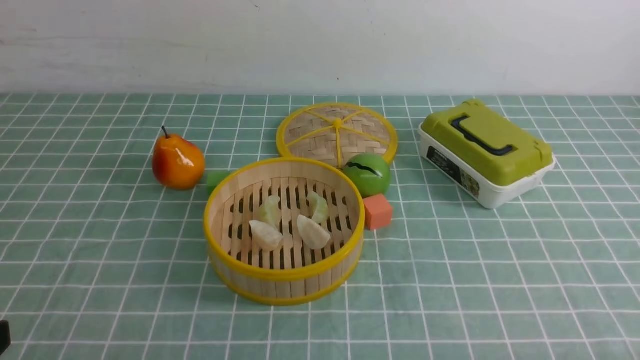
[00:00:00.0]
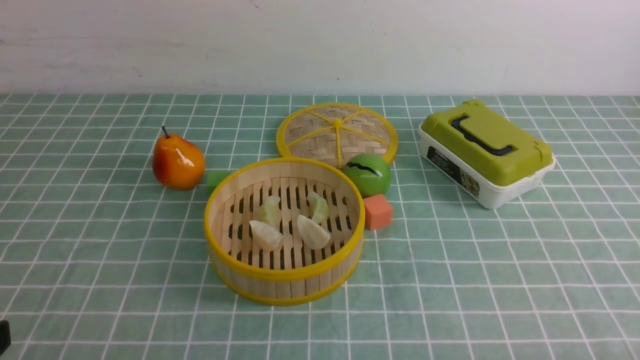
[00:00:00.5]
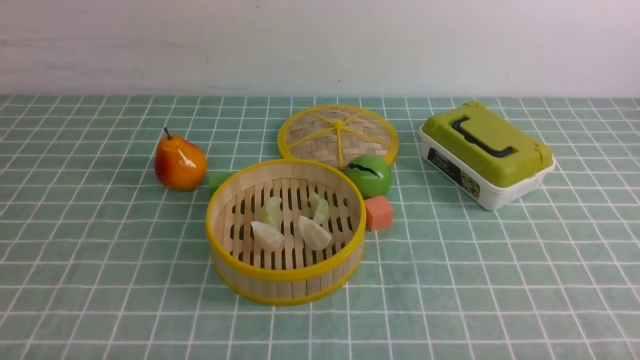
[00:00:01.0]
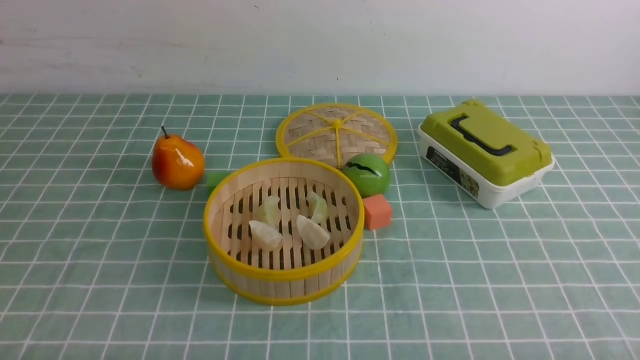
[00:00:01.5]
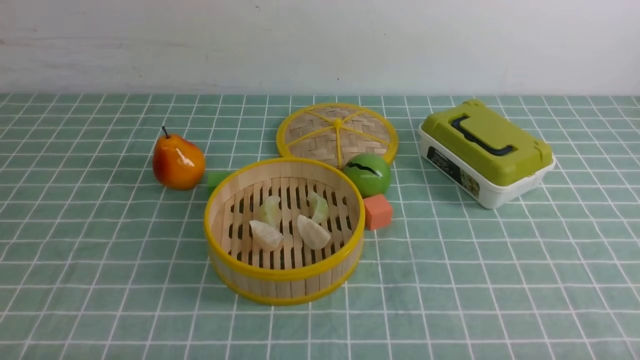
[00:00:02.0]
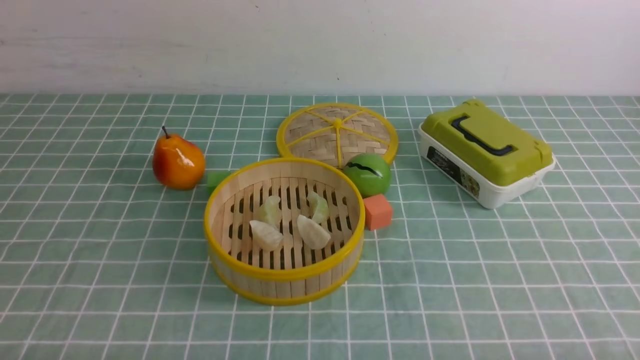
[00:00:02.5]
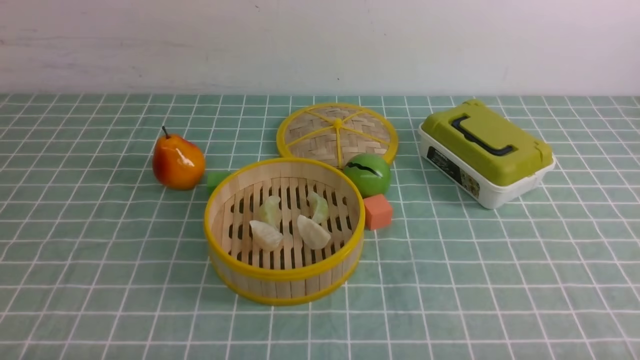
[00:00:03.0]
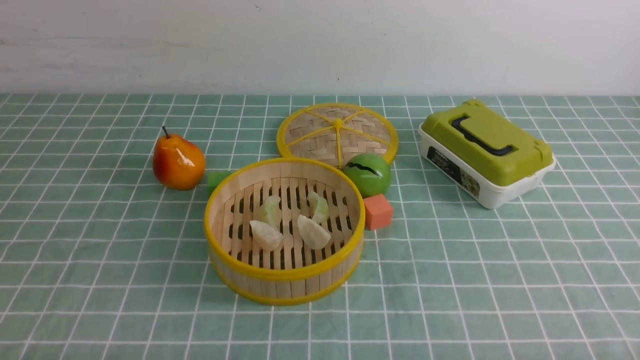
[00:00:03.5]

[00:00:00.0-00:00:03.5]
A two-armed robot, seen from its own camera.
Task of the whole recording: put the dumplings into the steamer on the table with the blue tablecloth.
00:00:02.0 to 00:00:03.5: Both grippers stay put.

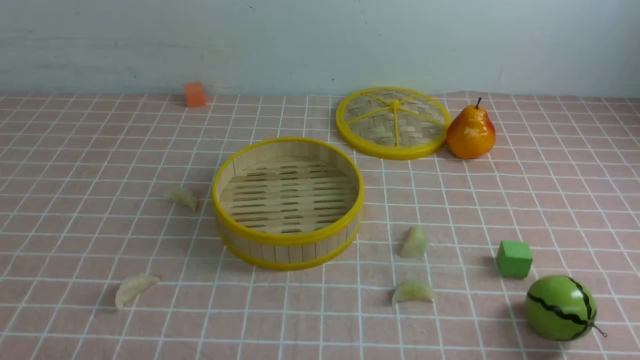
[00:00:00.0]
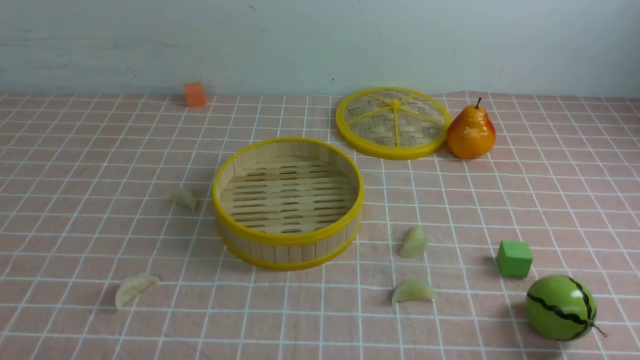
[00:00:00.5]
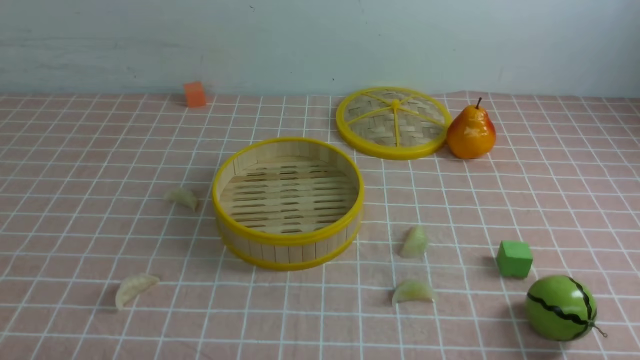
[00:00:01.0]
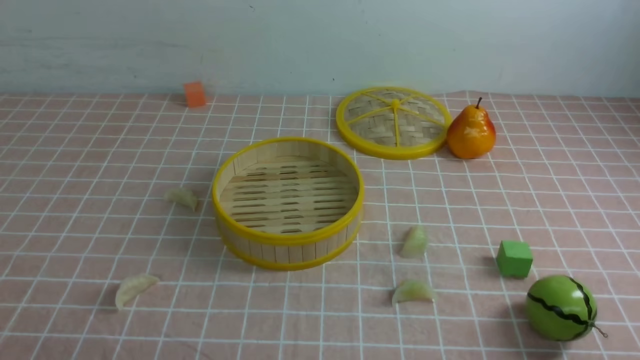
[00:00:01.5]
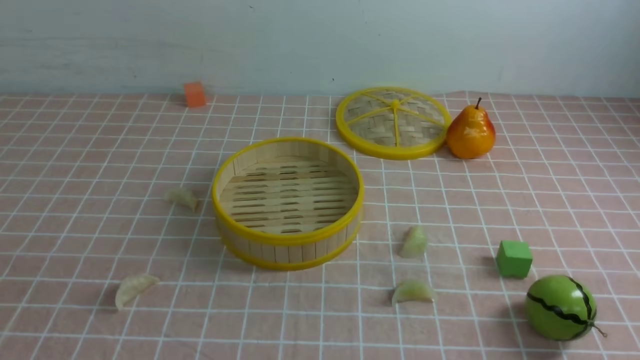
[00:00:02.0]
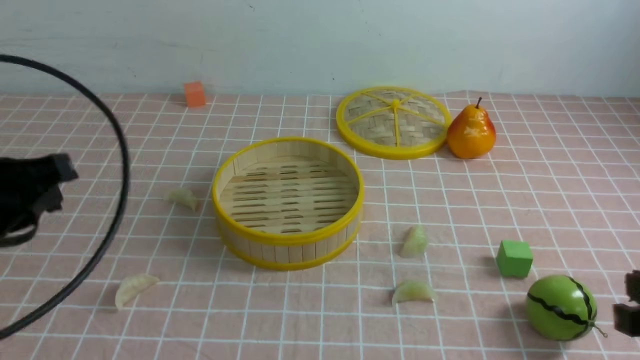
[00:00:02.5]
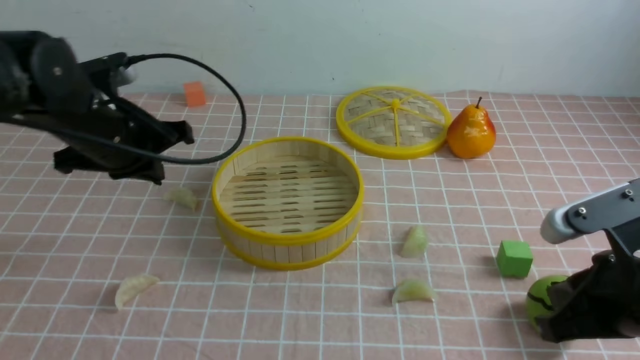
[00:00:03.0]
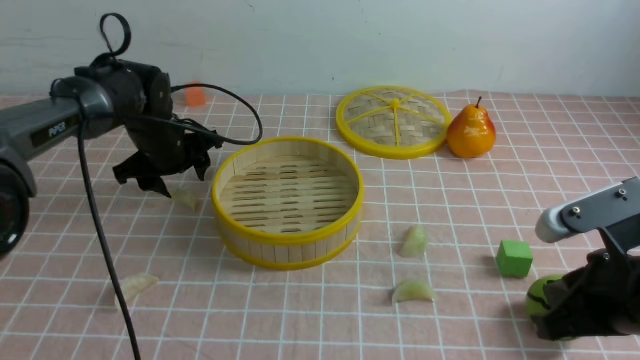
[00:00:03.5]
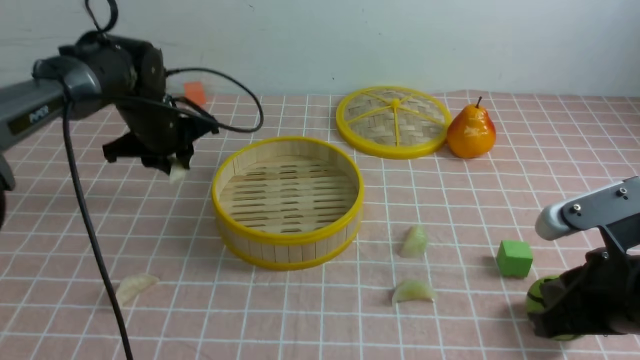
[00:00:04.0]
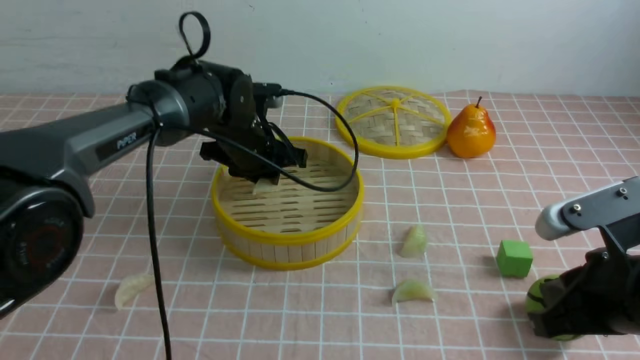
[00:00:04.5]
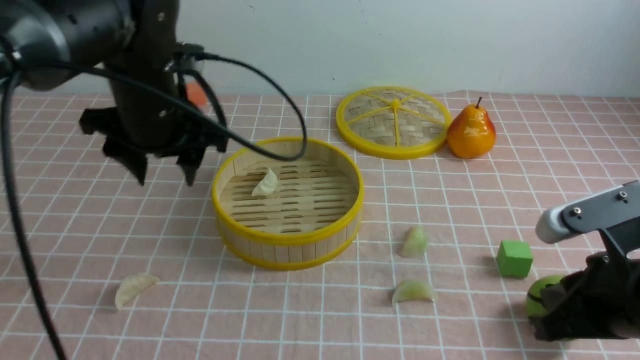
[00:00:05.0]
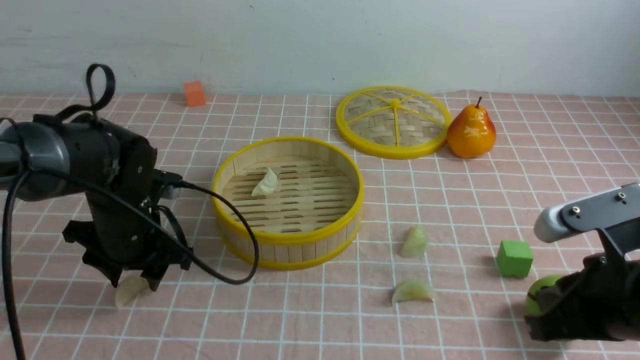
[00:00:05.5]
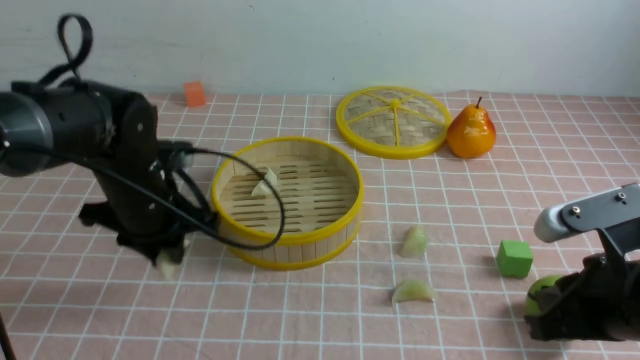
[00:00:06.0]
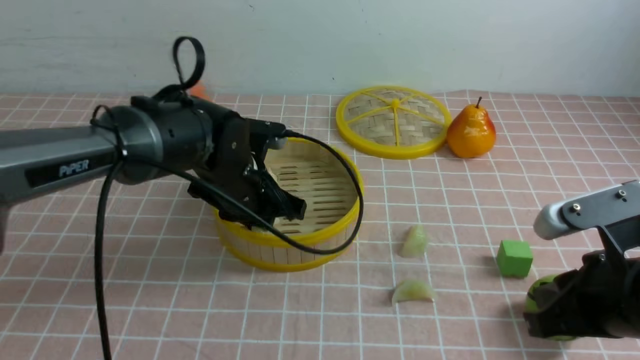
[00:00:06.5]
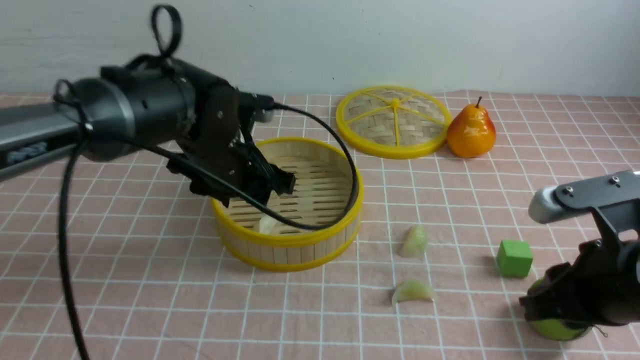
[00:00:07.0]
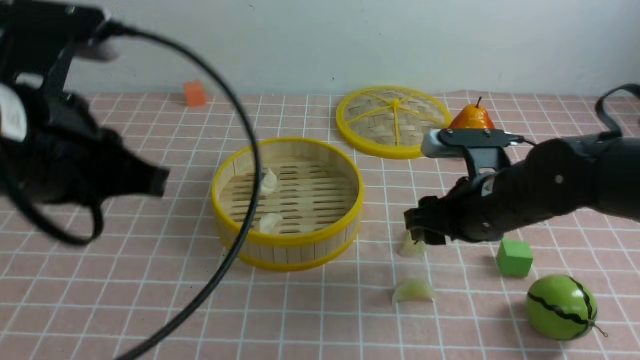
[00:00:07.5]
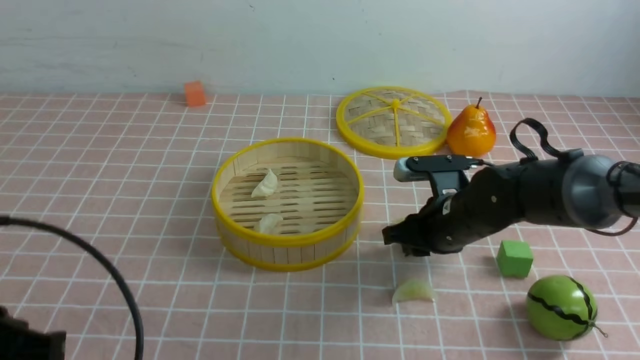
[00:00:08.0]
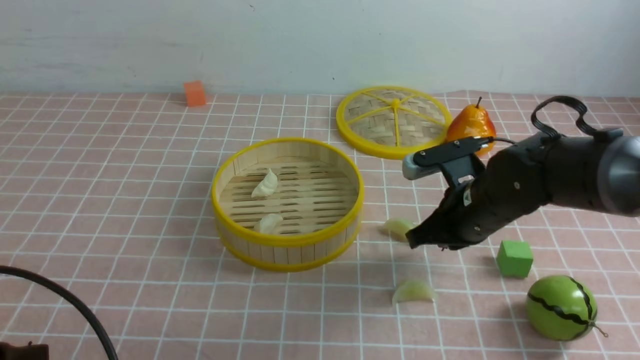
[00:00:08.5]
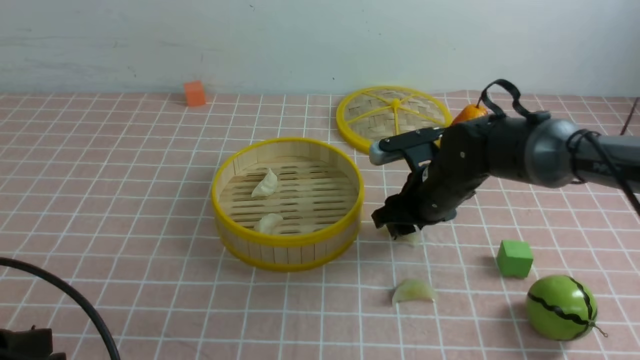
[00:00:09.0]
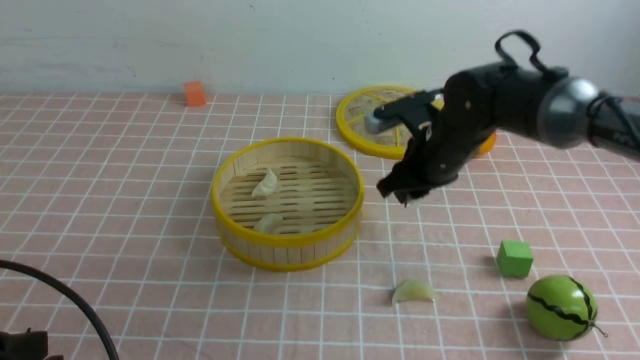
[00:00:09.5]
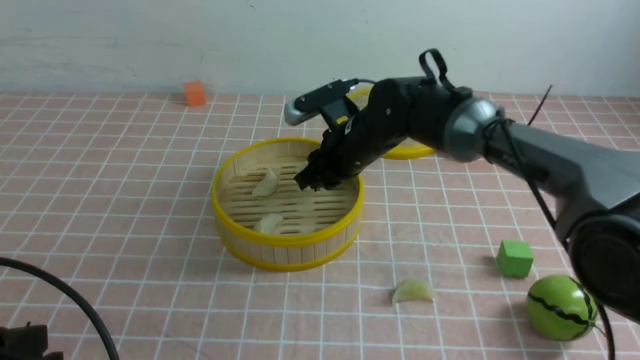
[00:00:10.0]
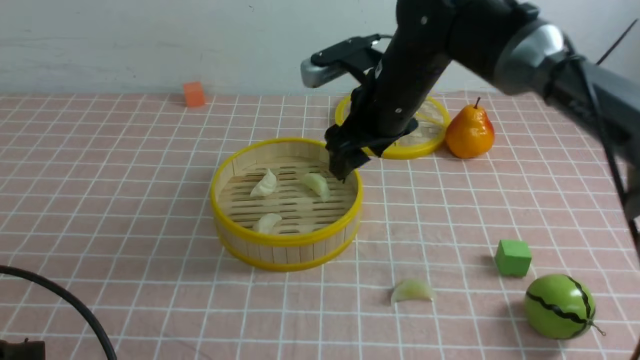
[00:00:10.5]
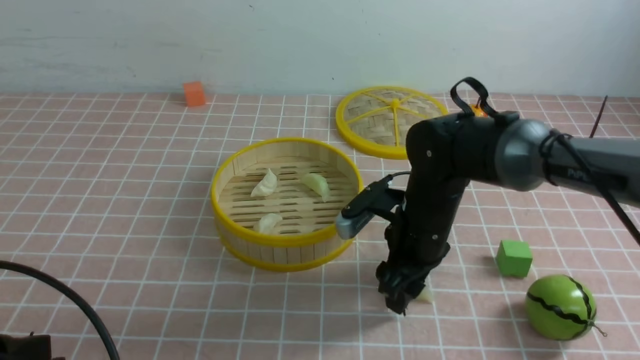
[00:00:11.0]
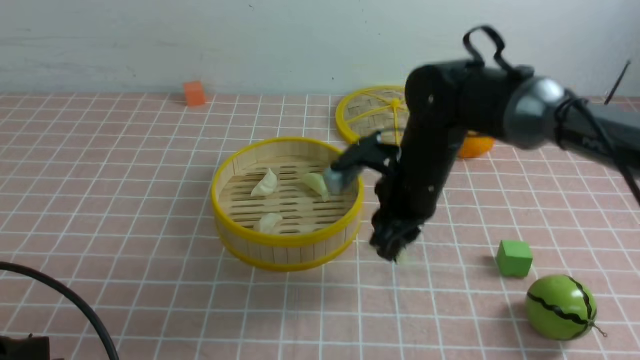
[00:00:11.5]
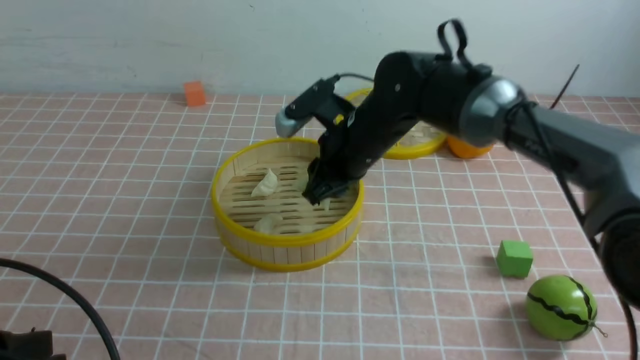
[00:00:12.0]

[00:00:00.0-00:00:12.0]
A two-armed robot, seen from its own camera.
Task of the whole recording: put the dumplings into the steamer on the table with the pink tablecloth.
Step, 00:00:00.0 to 00:00:03.5: use the left arm to grab a dumpling.
Step, 00:00:04.0 to 00:00:04.5: use the left arm to put the dumpling into the steamer.
Step, 00:00:05.0 to 00:00:05.5: use the left arm to grab a dumpling.
Step, 00:00:06.0 to 00:00:06.5: use the left arm to put the dumpling into the steamer.
Step, 00:00:07.0 to 00:00:09.0: use the right arm to grab a dumpling.
Step, 00:00:09.5 to 00:00:10.0: use the right arm to put the dumpling into the steamer.
Step, 00:00:10.5 to 00:00:11.0: use the right arm to grab a dumpling.
00:00:02.0 to 00:00:04.0: The left gripper shifts approximately 40 cm forward, and opens its fingers; the right gripper heads forward, to the left and downward, covering approximately 15 cm.
00:00:04.0 to 00:00:06.0: The left gripper travels backward by about 10 cm, and opens, then closes once more.
00:00:06.0 to 00:00:08.0: The left gripper moves backward, some 20 cm, and closes. Meanwhile the right gripper travels forward, downward and to the left by roughly 20 cm, and opens and closes again.
00:00:08.0 to 00:00:10.0: The right gripper is displaced to the left, forward and upward by approximately 15 cm.
00:00:10.0 to 00:00:12.0: The right gripper moves about 10 cm backward and comes back, and opens and closes again.

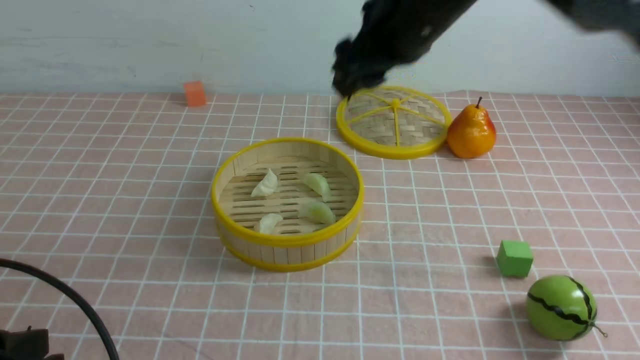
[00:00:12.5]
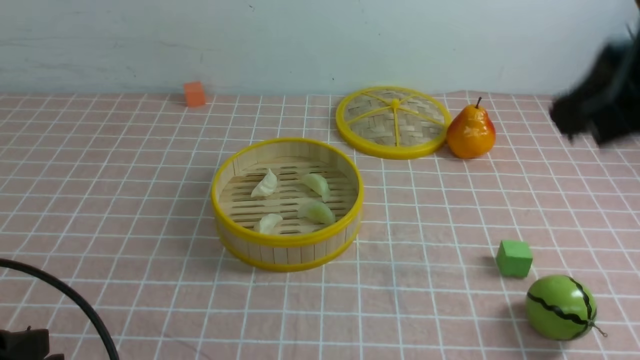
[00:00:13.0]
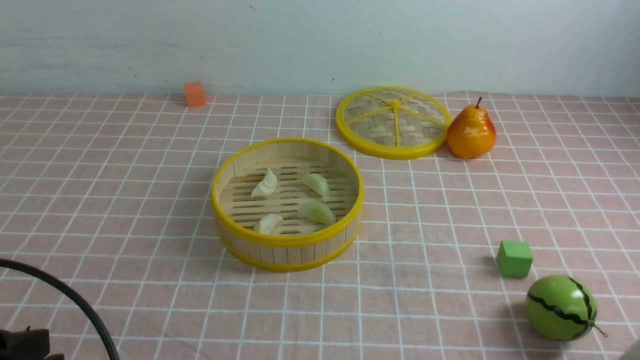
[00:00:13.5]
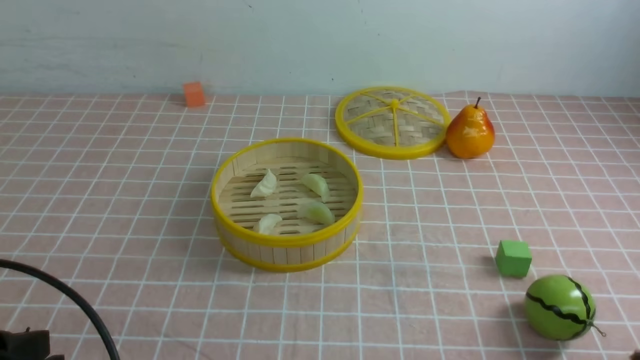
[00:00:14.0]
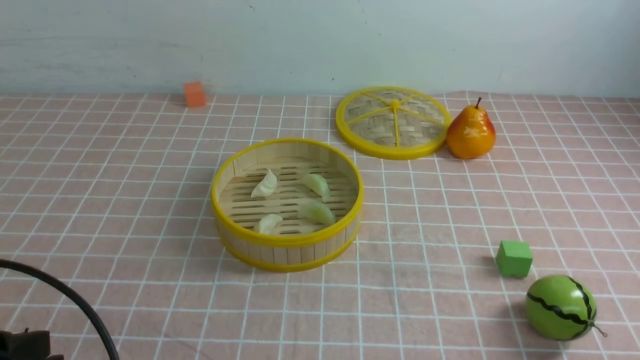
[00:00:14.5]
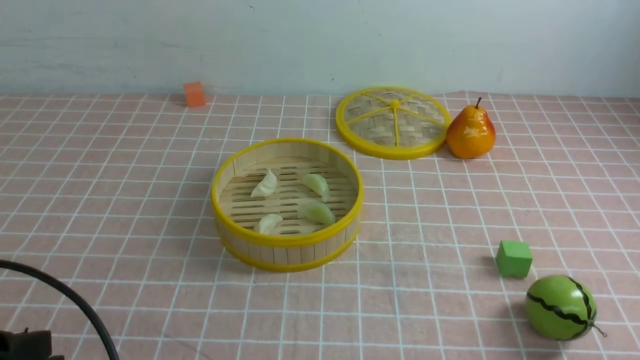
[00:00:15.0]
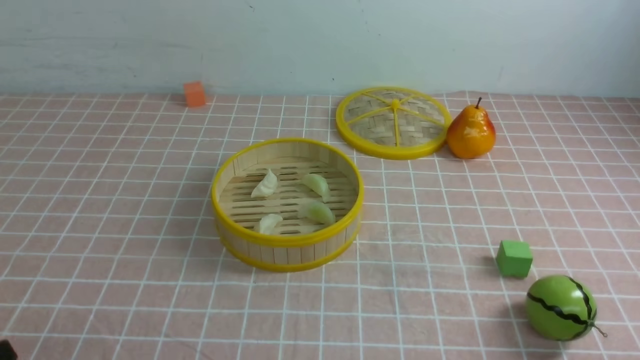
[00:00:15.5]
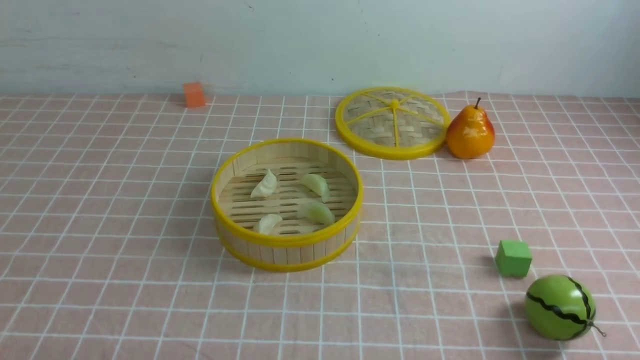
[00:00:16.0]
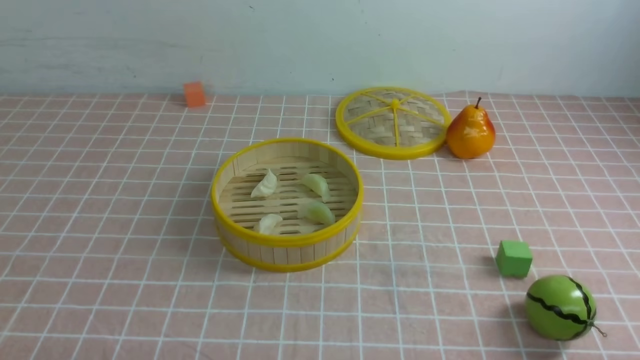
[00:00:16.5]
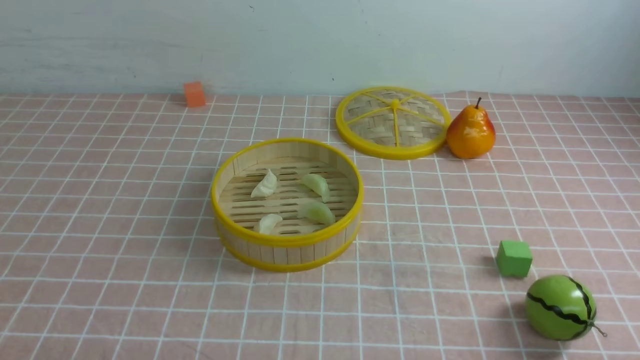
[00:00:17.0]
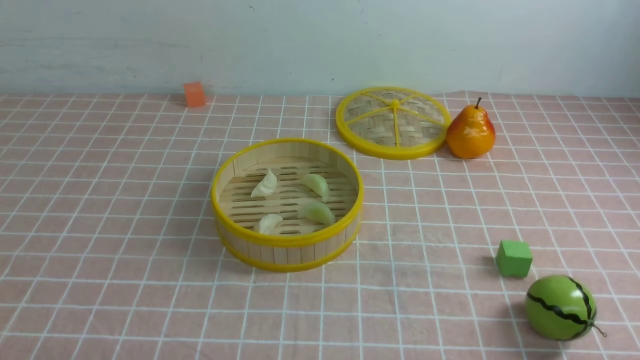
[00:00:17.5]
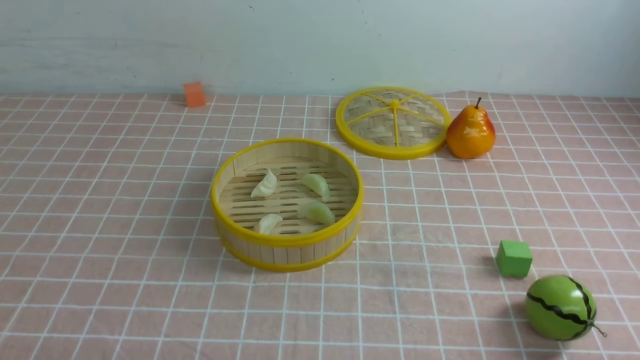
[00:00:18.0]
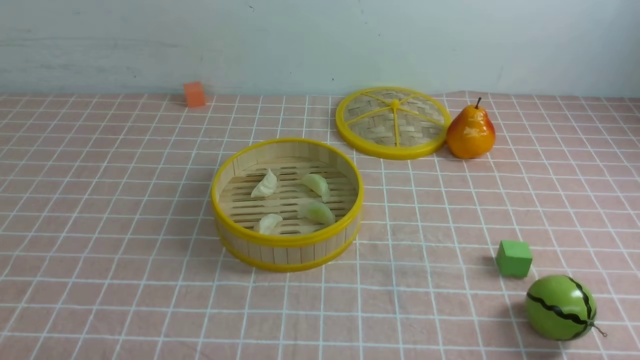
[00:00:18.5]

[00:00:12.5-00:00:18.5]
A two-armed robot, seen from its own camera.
Task of the whole recording: put the dumplings into the steamer on the table with the pink tablecloth.
00:00:12.5 to 00:00:14.5: The right gripper shifts roughly 40 cm backward, downward and to the right, and closes up.
00:00:14.5 to 00:00:16.5: The left gripper moves downward and backward, roughly 10 cm.
00:00:16.5 to 00:00:18.5: Both grippers stay put.
